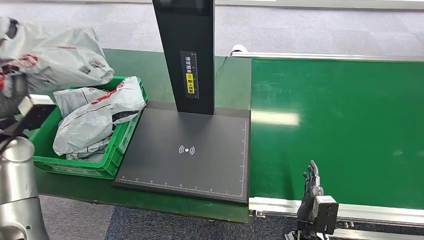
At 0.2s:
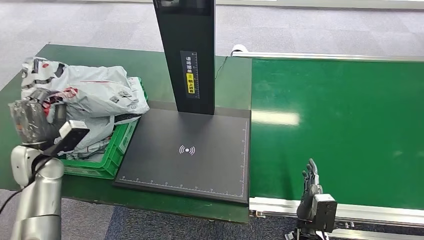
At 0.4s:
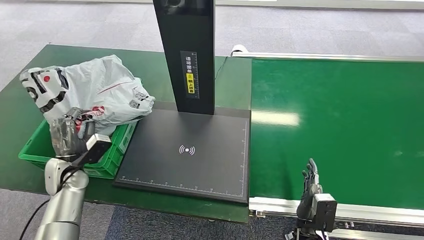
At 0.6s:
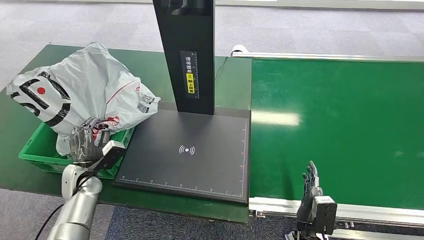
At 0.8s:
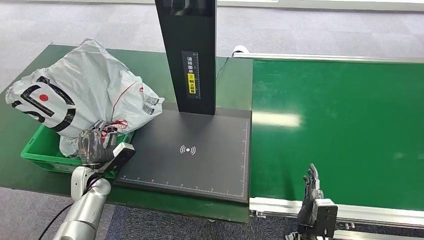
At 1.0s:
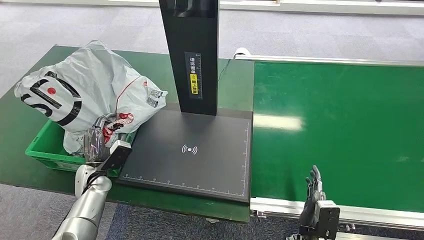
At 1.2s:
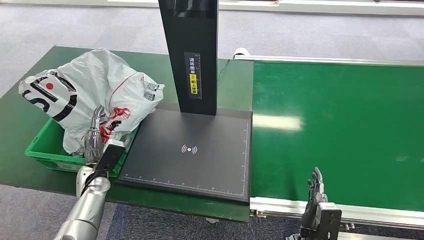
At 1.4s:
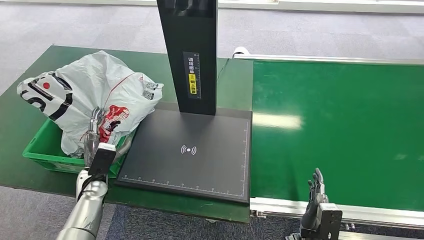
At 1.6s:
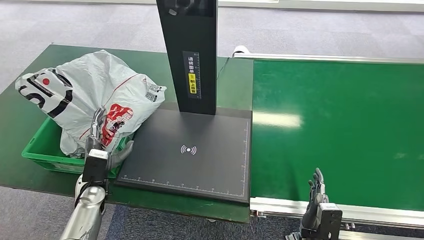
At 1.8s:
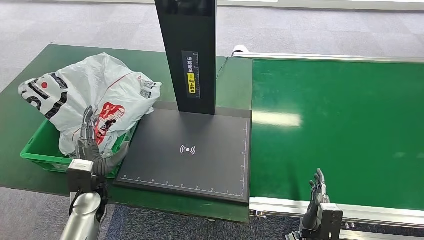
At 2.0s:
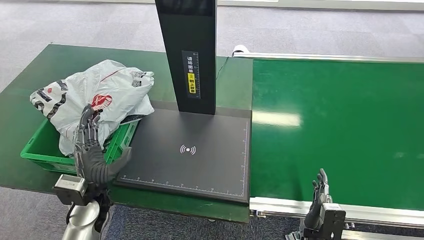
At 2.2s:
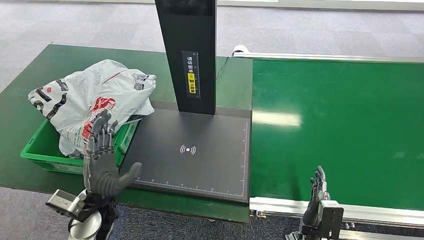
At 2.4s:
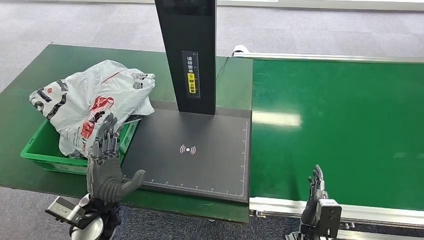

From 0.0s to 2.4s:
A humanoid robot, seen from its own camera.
Step, from 0.0s to 2.4s: Place the package into the parcel locker.
